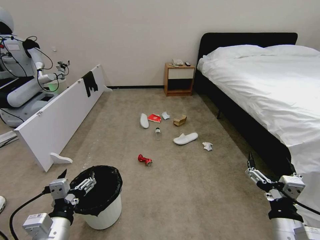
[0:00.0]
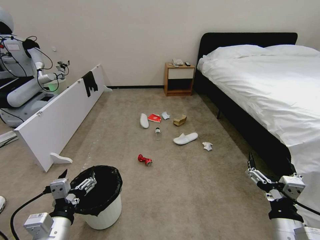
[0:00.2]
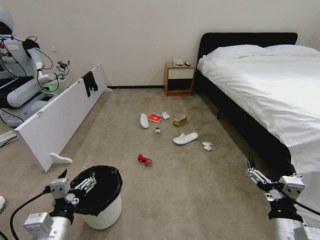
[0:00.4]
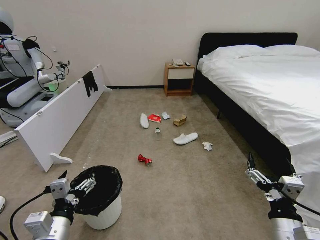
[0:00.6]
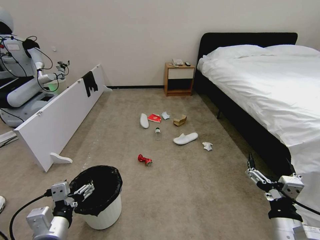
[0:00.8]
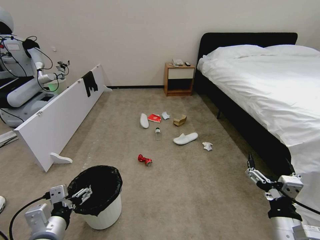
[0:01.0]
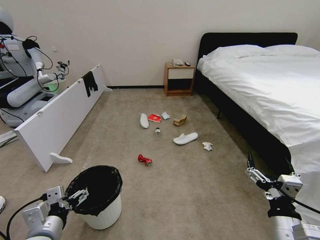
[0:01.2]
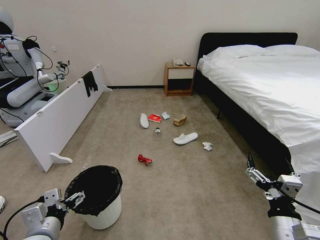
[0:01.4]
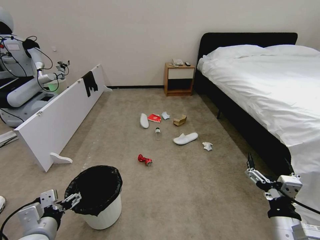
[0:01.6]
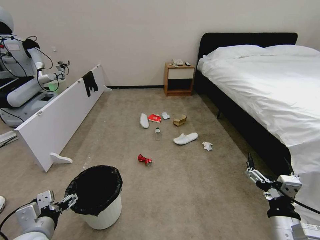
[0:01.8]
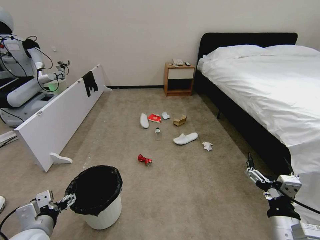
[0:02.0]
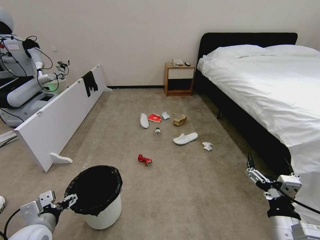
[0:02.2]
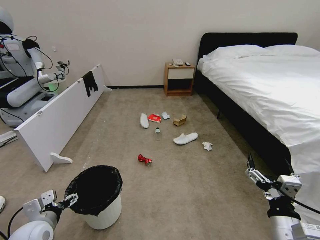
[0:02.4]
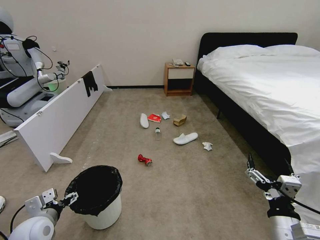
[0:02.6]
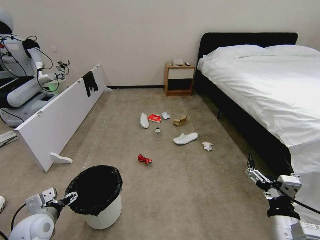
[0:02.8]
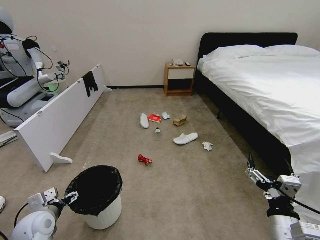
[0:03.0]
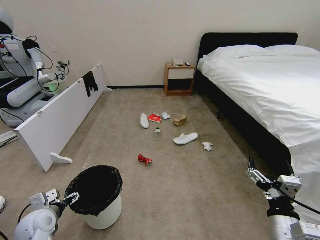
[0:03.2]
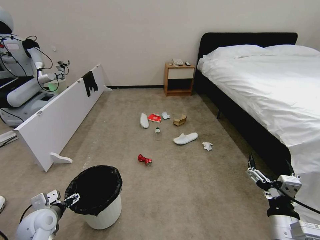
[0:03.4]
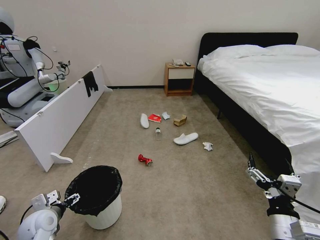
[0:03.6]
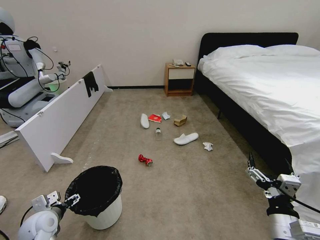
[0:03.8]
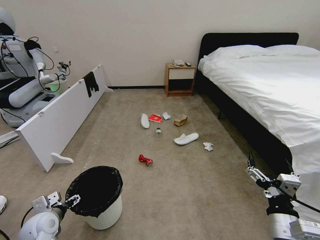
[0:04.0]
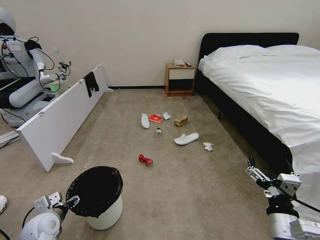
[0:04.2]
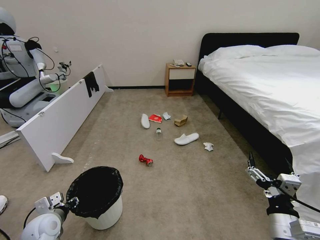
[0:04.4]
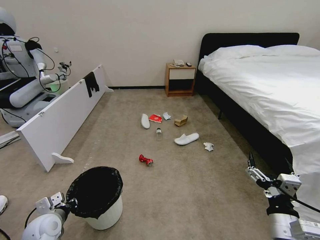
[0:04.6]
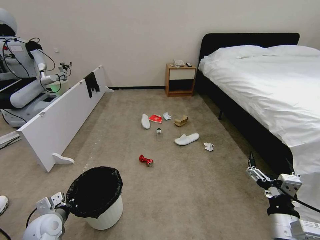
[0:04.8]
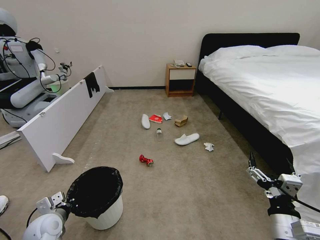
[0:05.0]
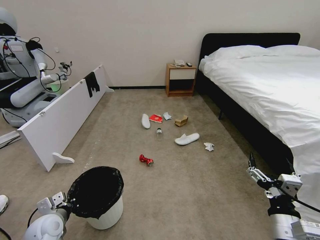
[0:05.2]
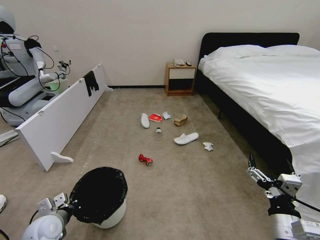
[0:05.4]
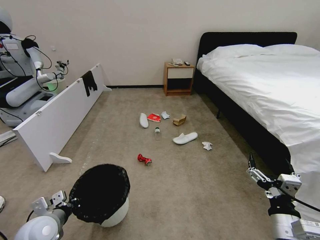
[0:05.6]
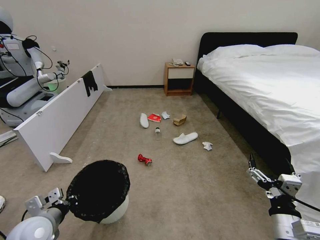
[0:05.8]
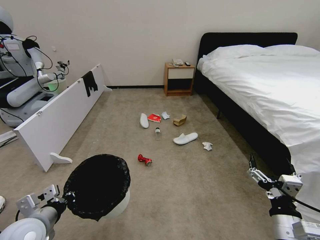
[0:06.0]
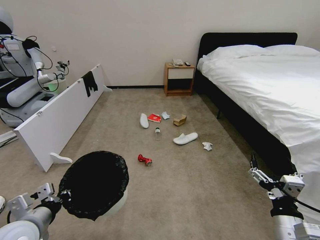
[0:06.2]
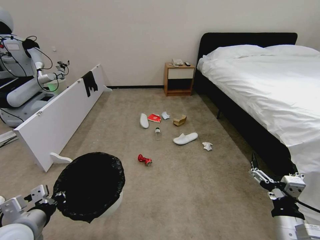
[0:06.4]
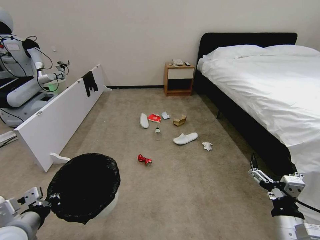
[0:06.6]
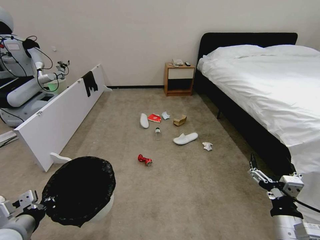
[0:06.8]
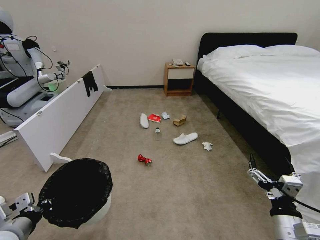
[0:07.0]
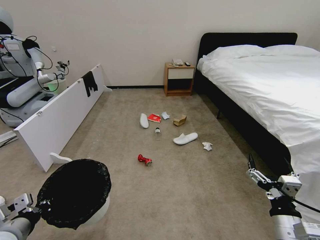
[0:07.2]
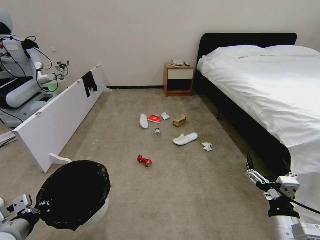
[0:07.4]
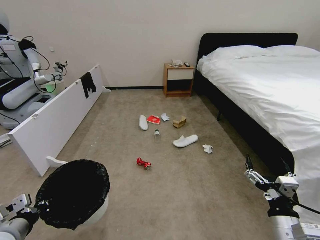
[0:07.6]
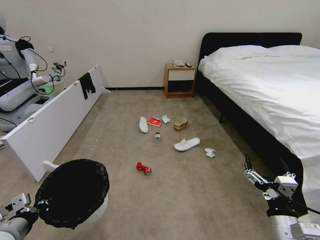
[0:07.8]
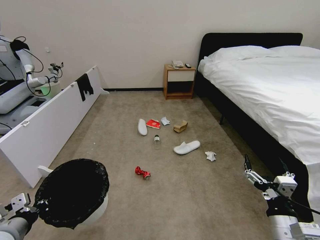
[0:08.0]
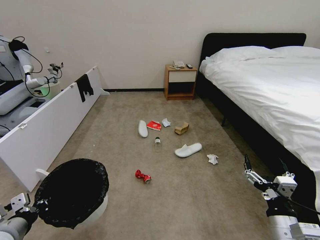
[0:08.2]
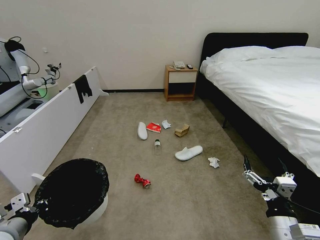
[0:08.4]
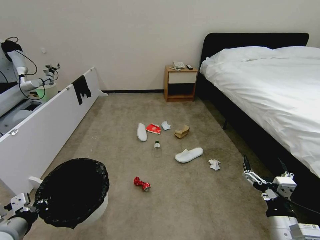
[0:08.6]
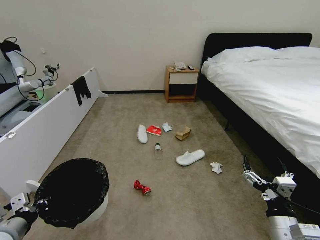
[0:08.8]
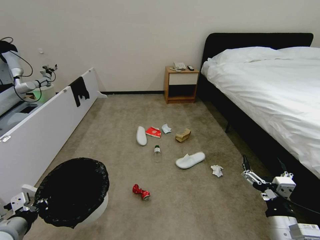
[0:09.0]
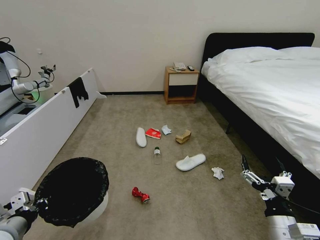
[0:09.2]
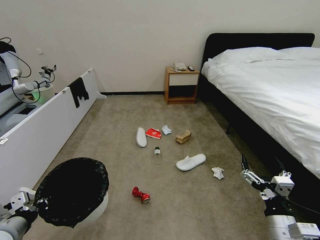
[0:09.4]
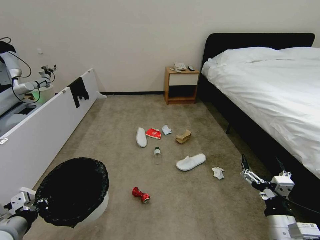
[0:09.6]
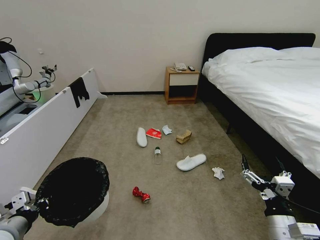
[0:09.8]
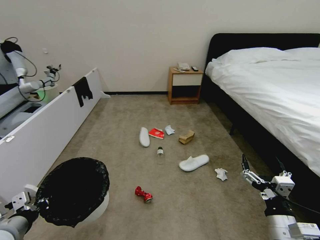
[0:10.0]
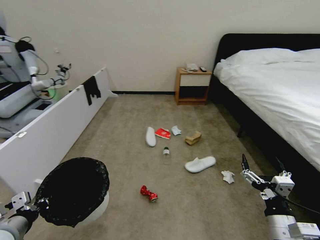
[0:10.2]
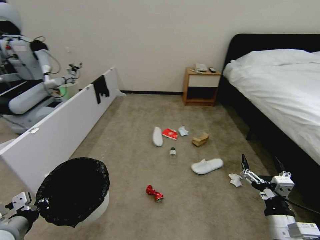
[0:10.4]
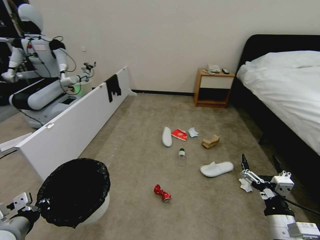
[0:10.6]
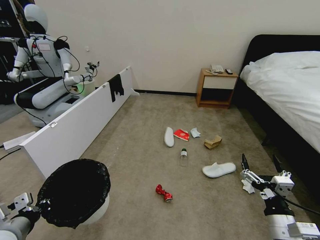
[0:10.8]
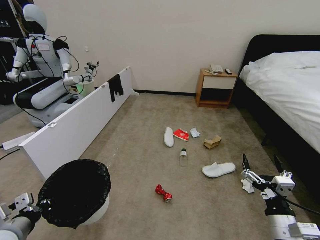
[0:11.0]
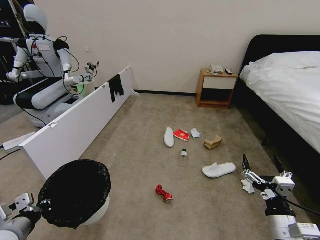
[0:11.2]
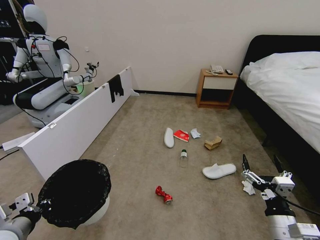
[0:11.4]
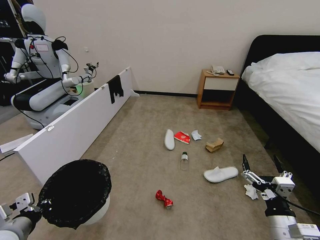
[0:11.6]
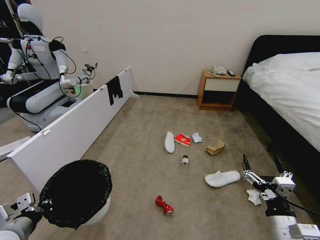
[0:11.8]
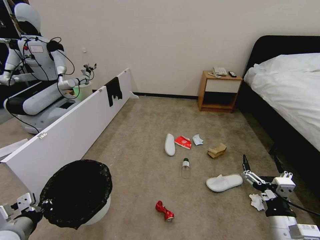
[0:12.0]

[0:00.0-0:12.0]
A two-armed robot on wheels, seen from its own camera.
Task of the whole recording: Pick up the trash bin, then pick up the garbage from the floor and place it into the trash bin.
0:01.6 to 0:03.0: The left gripper shifts some 10 cm forward, to the left and downward.
0:03.0 to 0:04.4: The left gripper closes up.
0:04.4 to 0:06.0: The left gripper moves upward, some 10 cm, and closes its fingers.
0:06.0 to 0:07.6: The left gripper ends up some 5 cm from where it was.

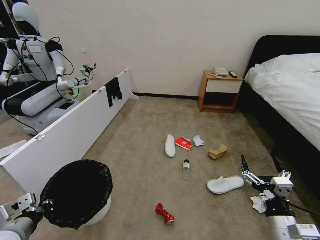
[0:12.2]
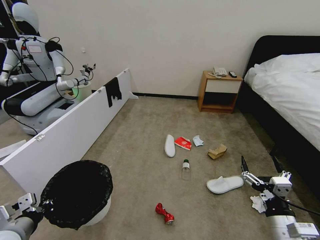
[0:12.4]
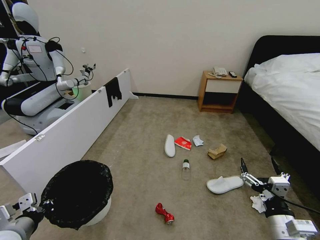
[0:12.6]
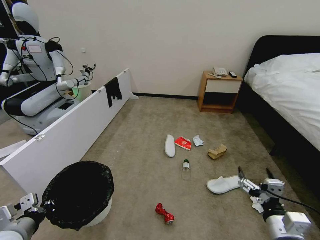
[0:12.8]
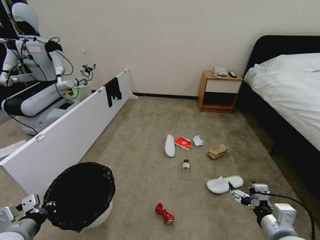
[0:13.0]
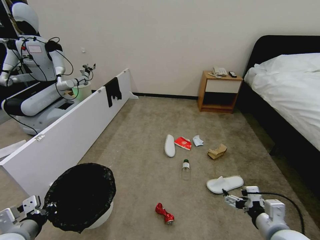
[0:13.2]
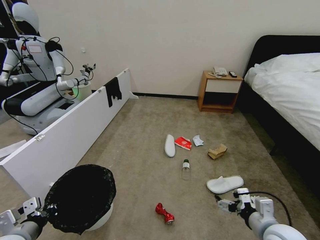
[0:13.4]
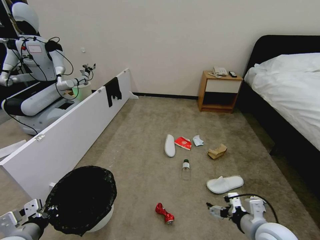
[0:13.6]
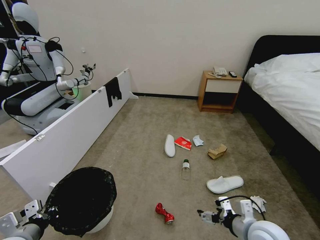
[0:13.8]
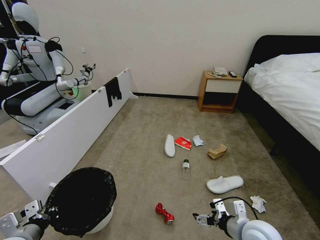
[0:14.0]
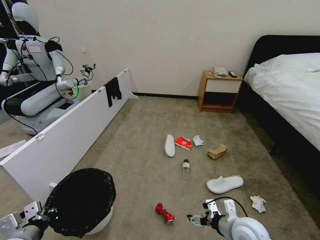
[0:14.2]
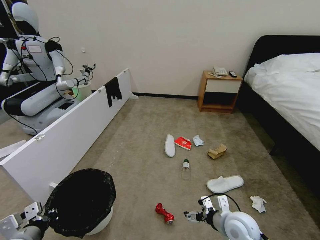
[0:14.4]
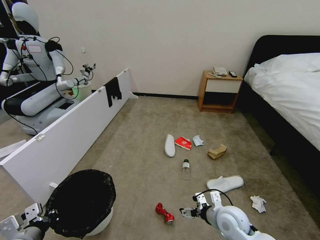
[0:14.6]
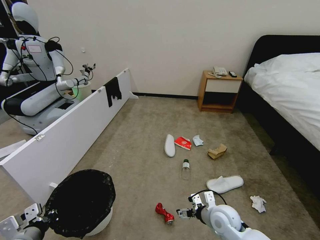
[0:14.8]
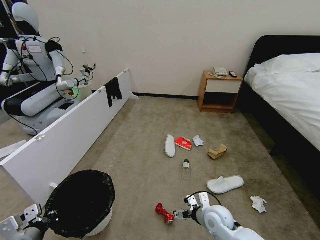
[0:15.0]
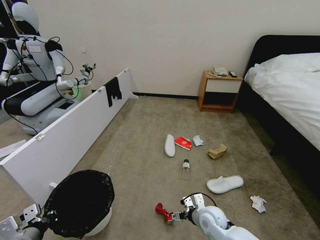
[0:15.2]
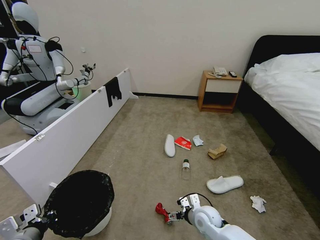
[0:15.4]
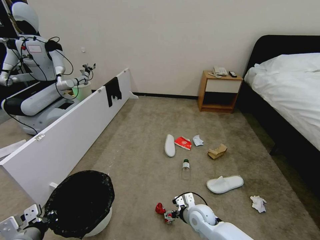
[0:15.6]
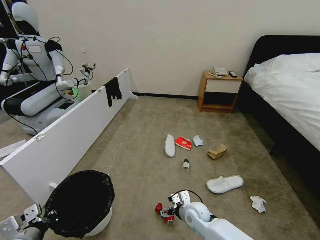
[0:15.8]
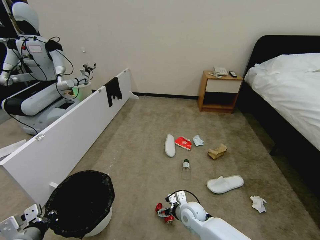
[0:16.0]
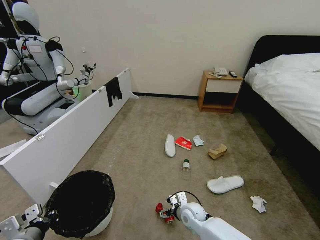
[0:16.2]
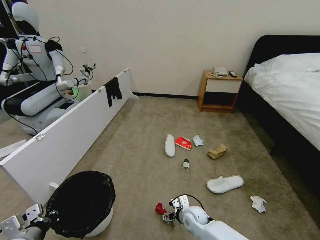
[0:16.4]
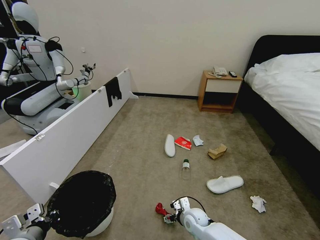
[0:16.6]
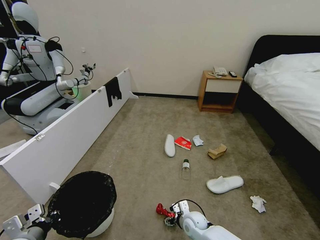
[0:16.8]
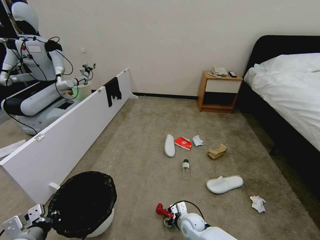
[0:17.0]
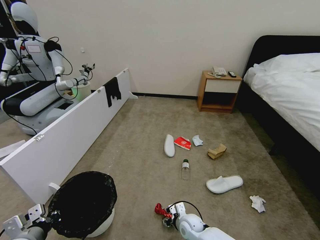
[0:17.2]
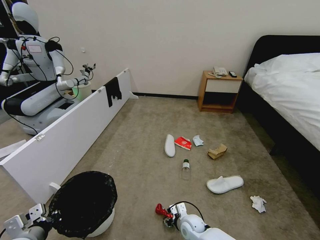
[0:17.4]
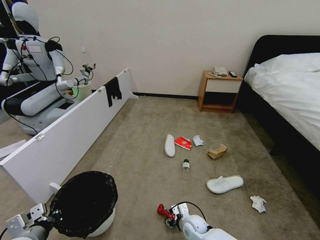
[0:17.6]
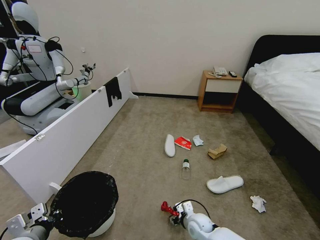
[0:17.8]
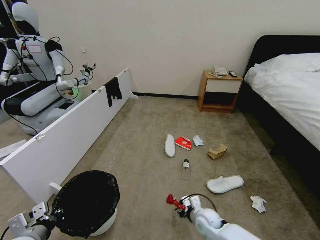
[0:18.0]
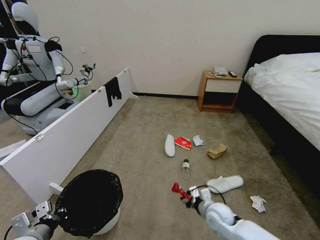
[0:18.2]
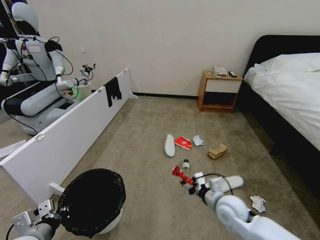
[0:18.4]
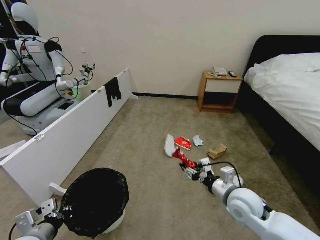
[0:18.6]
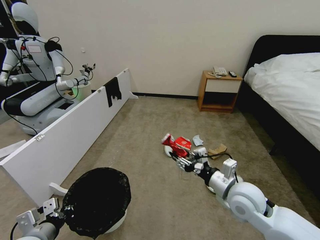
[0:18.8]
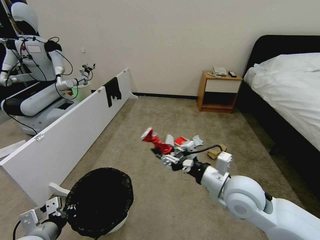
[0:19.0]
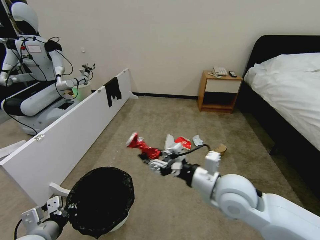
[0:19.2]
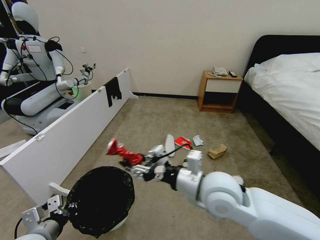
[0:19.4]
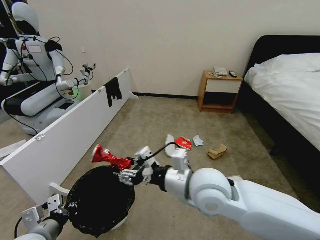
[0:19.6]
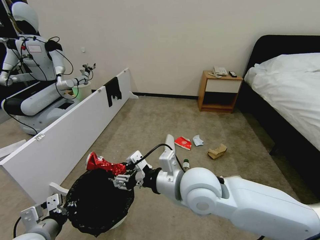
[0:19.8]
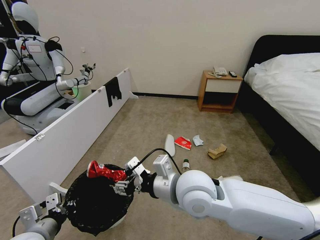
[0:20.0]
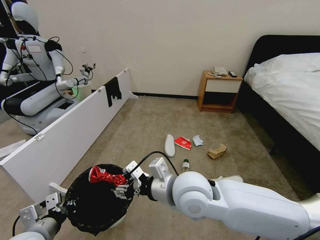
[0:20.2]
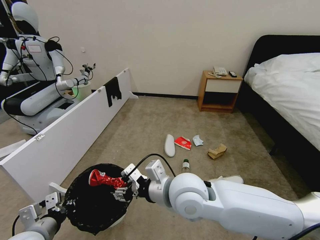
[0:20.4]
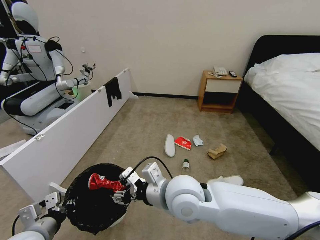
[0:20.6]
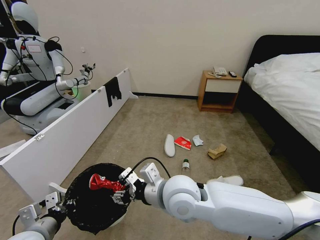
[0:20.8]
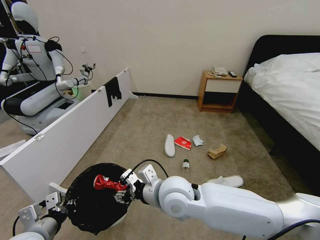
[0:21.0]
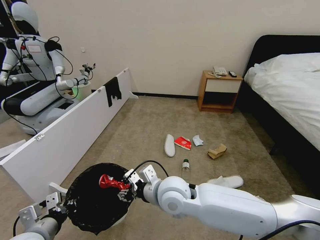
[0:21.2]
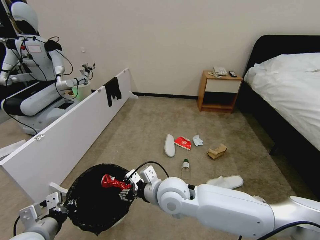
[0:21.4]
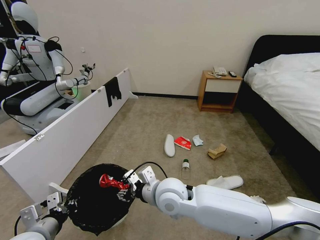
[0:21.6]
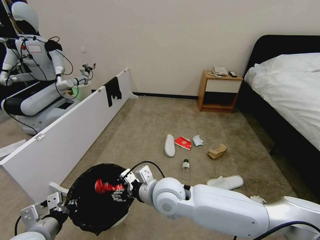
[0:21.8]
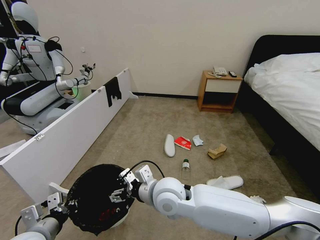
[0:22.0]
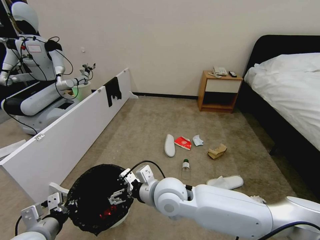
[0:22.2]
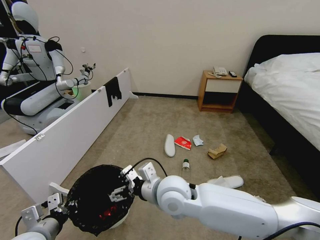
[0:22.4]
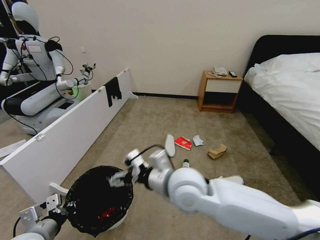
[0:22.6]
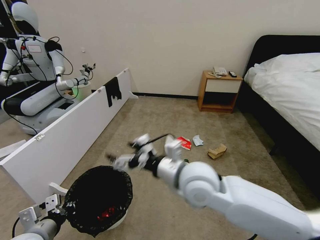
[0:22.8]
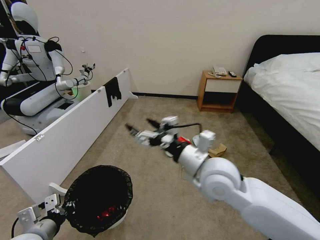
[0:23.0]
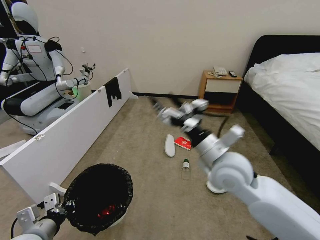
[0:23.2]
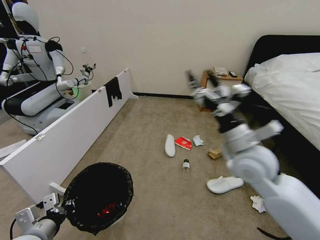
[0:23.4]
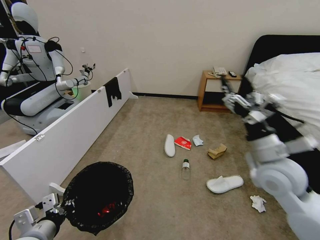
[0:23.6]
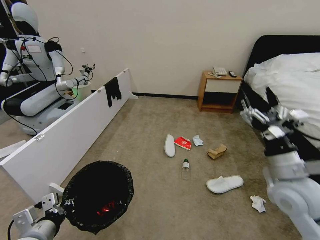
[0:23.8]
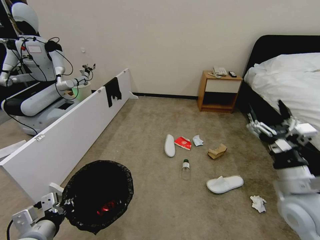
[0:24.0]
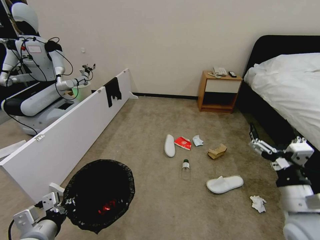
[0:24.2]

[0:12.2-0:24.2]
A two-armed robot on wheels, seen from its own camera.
Task of the whole recording: Pick up the trash bin, then pick up the garbage from the floor and place it into the trash bin.
0:12.2 to 0:13.8: The right gripper is displaced forward by some 5 cm.
0:13.8 to 0:15.2: The right gripper travels downward, to the left and forward by approximately 20 cm.
0:15.2 to 0:16.6: The right gripper is displaced downward by some 5 cm.
0:16.6 to 0:18.2: The right gripper travels to the right and upward by roughly 10 cm, and closes.
0:18.2 to 0:19.8: The right gripper is displaced upward and to the left by about 30 cm.
0:19.8 to 0:21.2: The right gripper goes about 10 cm downward and to the left.
0:21.2 to 0:22.6: The right gripper travels upward by roughly 5 cm, and opens its fingers.
0:22.6 to 0:24.2: The right gripper travels to the right by approximately 30 cm.
